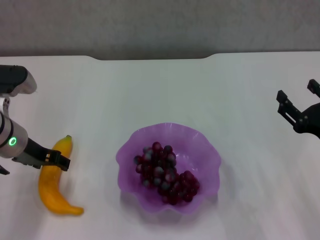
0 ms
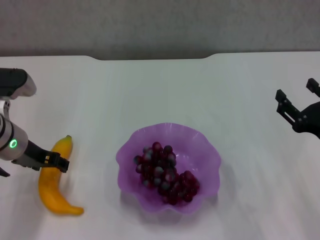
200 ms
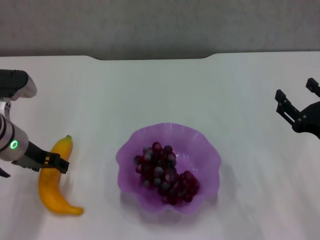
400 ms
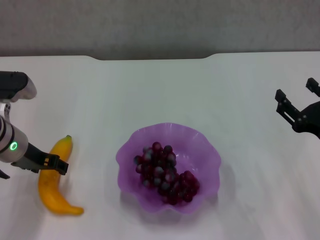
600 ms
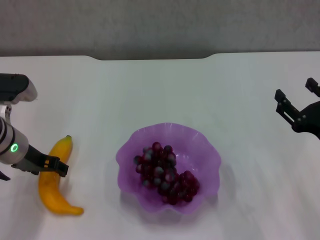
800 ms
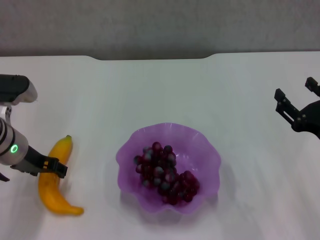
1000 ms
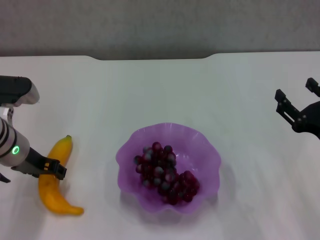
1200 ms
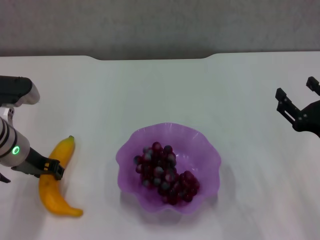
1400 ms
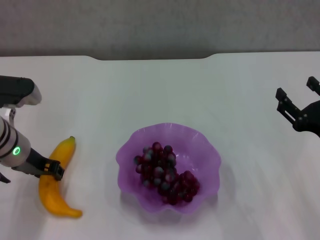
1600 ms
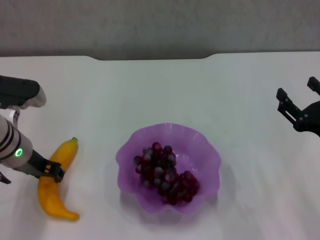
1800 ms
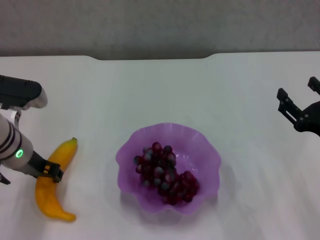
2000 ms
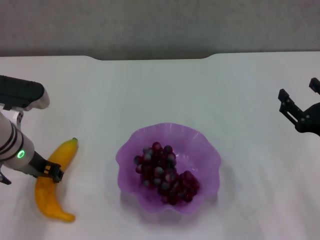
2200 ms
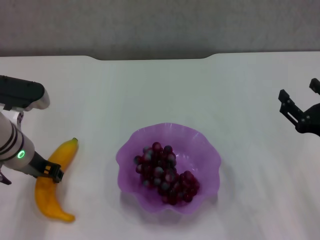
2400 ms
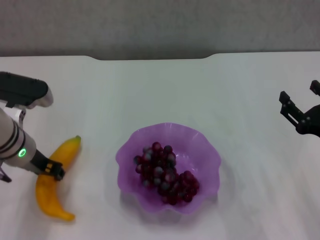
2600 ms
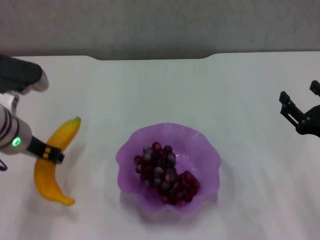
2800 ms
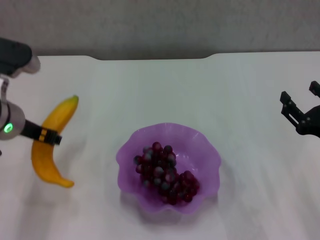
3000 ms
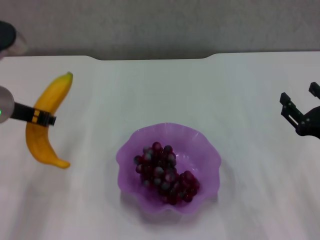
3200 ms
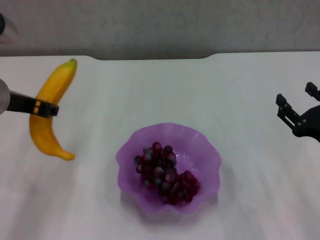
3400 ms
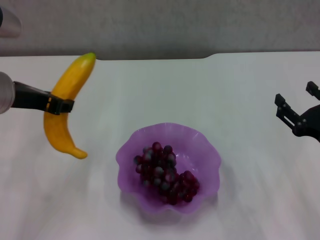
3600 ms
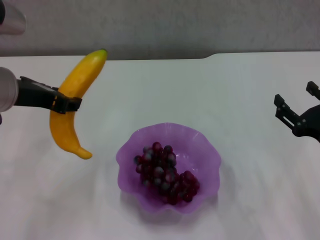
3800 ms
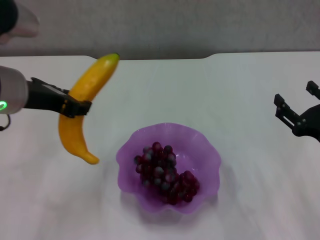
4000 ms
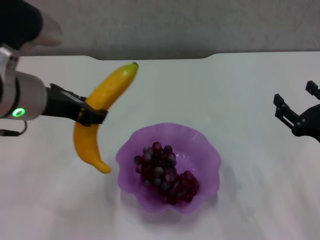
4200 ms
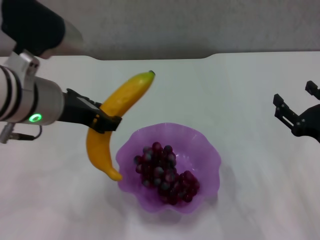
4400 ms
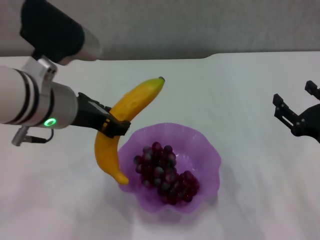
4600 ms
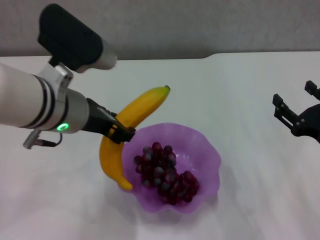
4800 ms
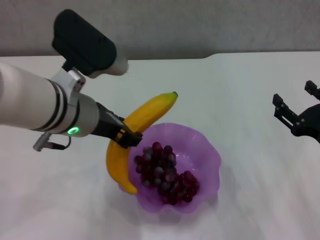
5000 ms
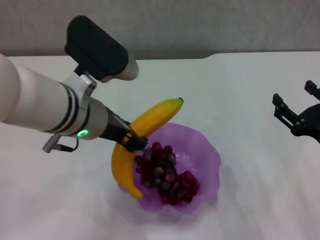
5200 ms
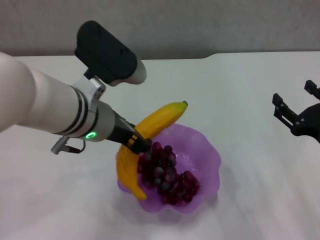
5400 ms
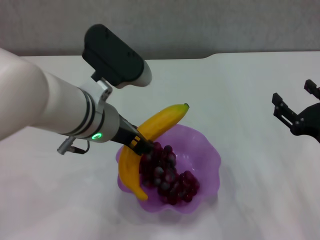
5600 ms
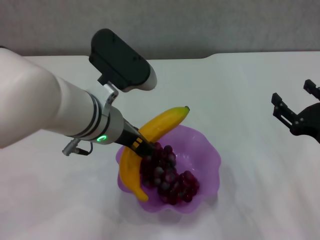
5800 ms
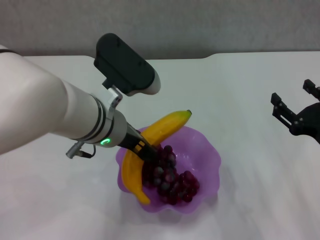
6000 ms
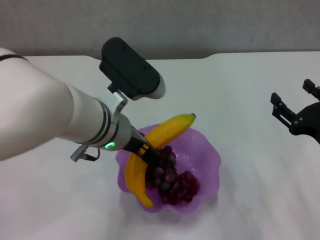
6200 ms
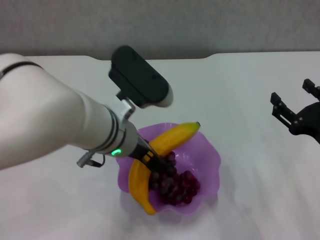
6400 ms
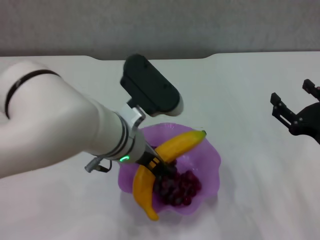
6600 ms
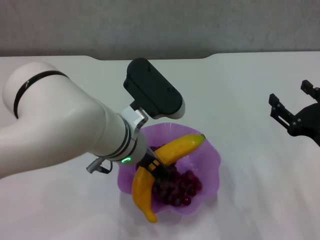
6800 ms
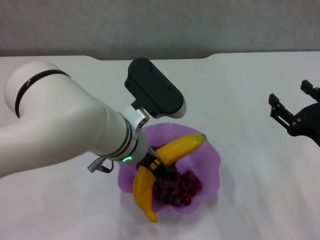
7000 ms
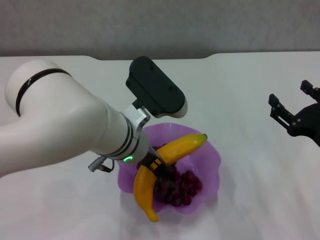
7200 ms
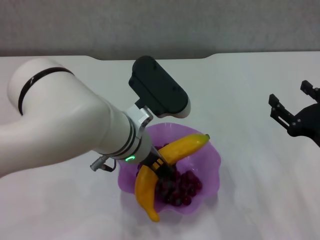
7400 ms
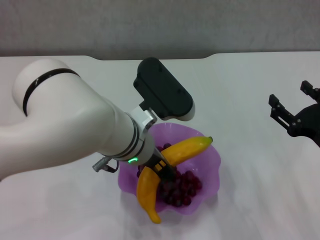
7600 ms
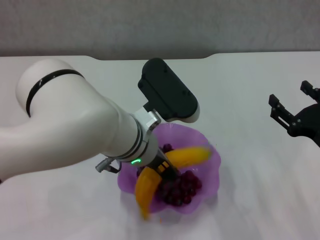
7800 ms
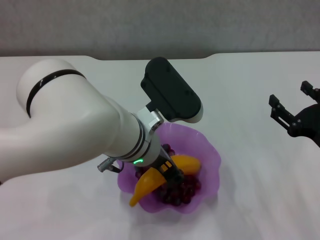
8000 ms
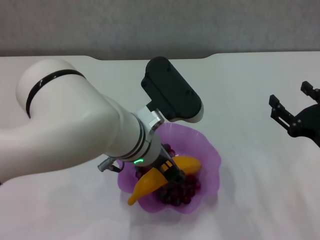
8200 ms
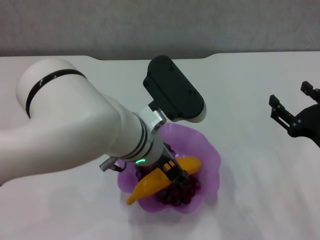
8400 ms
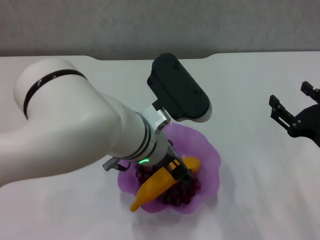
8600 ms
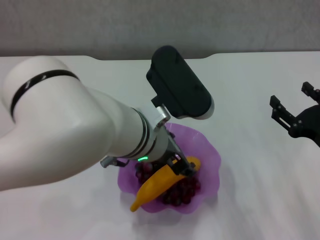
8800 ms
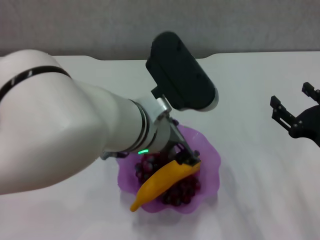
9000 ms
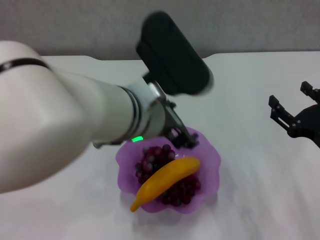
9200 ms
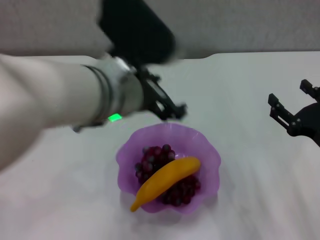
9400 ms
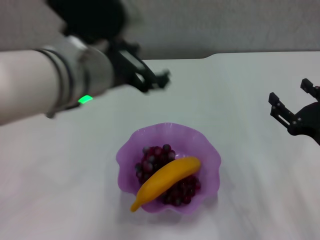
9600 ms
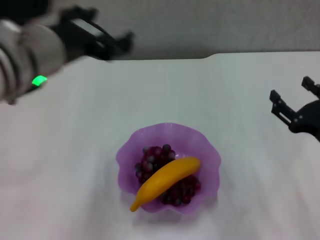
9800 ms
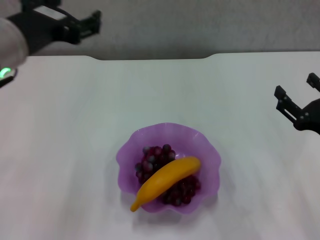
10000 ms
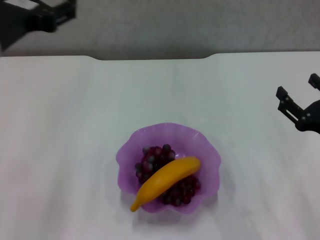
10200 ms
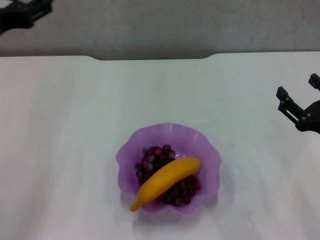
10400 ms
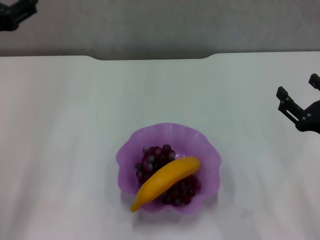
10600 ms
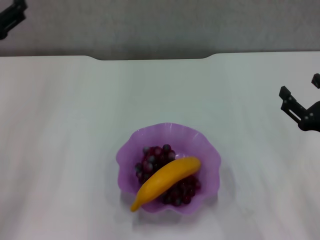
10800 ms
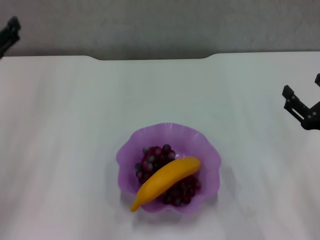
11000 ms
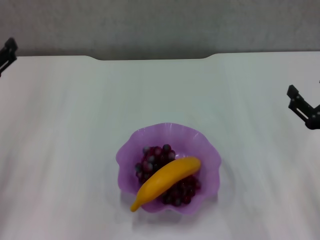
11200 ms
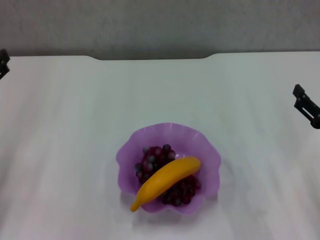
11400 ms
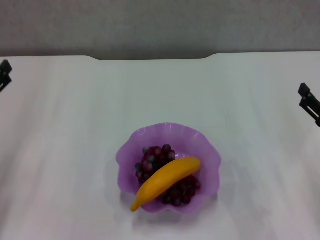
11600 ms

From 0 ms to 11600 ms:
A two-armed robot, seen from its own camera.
Step, from 0 ms to 2200 ms: Grasp the banana with left gripper.
Step, from 2400 ms to 9200 ms: Place the banana in the purple plate with left gripper.
From 0 ms to 1400 ms: The grippers stay close to where they were, moving slightly.
From 1400 ms to 2800 ms: The left gripper closes.
From 2800 ms to 4400 ms: The left gripper goes about 10 cm upward and to the right.
From 4400 ms to 5800 ms: The left gripper shifts some 5 cm to the right.
From 7200 ms to 8800 ms: The left gripper opens up.
From 8800 ms to 10200 ms: The left gripper shifts some 20 cm to the left and upward.
From 10200 ms to 11600 ms: The left gripper shifts some 20 cm downward and to the left.
